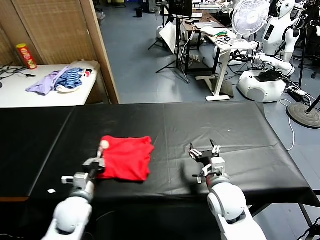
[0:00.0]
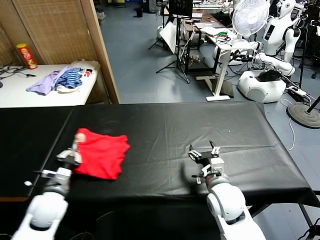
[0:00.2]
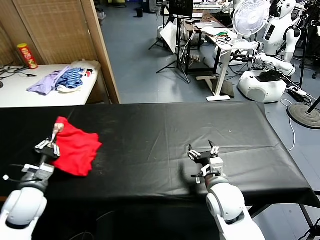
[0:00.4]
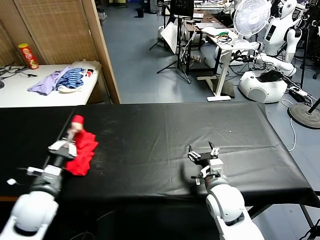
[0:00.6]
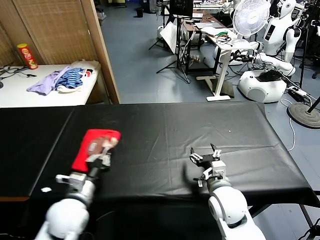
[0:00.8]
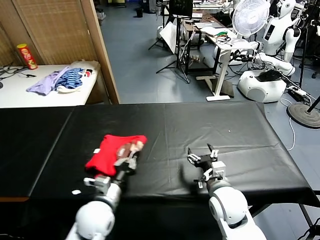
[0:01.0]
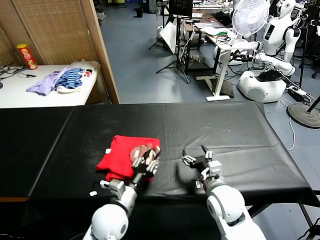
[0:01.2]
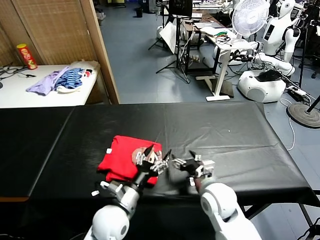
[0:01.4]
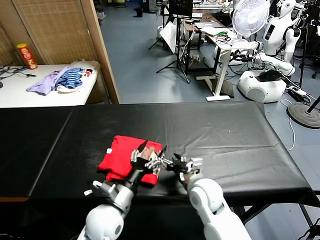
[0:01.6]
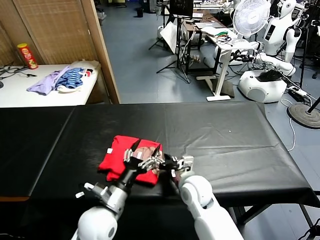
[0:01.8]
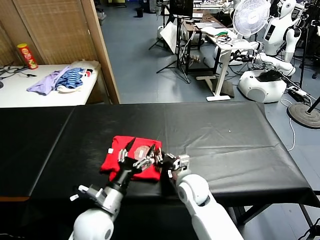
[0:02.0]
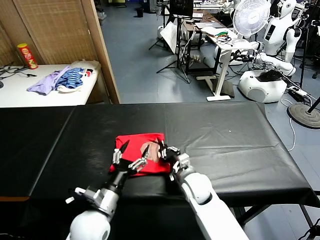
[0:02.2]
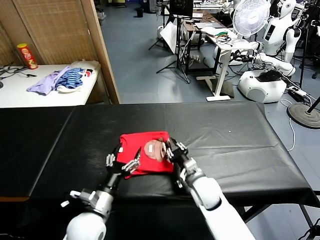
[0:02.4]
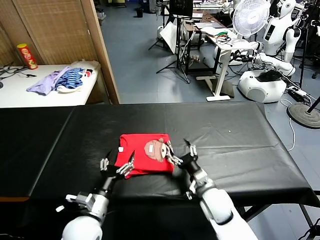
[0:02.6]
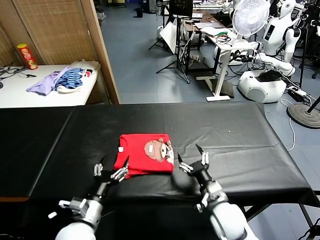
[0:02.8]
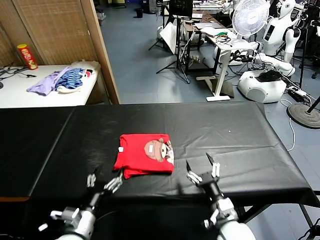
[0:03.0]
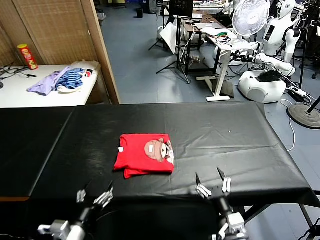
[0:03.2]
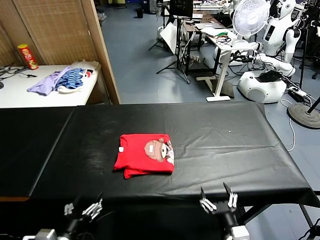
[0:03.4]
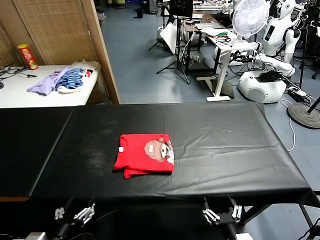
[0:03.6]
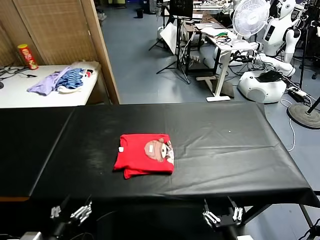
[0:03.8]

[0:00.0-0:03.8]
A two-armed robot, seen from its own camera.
Task of the whole recording: fold and organize the clothes.
Step, 0:01.4 to 0:02.4: Drag the clothes to the center of the table.
0:00.0 to 0:01.2: The left gripper heads to the right, covering about 10 cm.
0:01.2 to 0:02.6: The right gripper heads downward, covering about 5 cm, travels to the left and back again, approximately 10 cm each way, and closes, then opens again. The left gripper moves to the left, some 5 cm, and opens.
0:02.6 to 0:03.8: The right gripper goes some 25 cm backward. The left gripper shifts approximately 15 cm backward, to the left and upward.

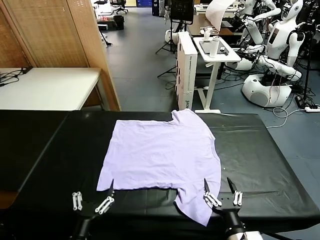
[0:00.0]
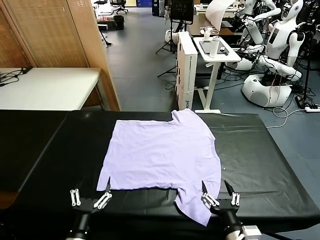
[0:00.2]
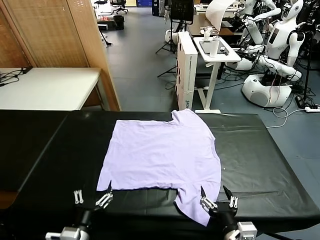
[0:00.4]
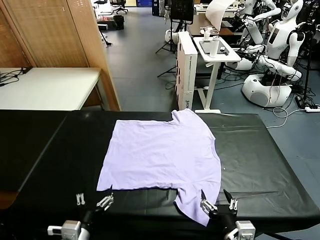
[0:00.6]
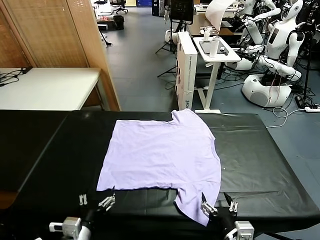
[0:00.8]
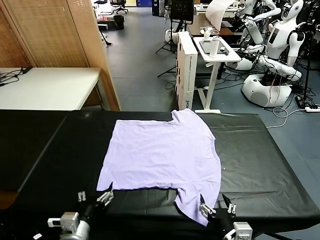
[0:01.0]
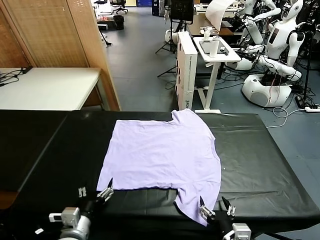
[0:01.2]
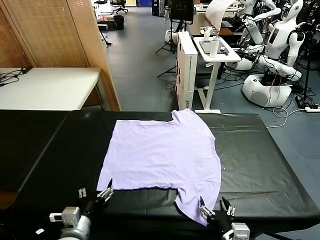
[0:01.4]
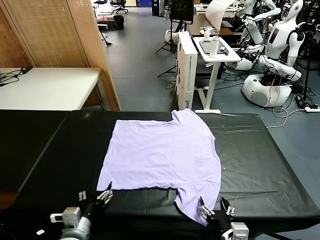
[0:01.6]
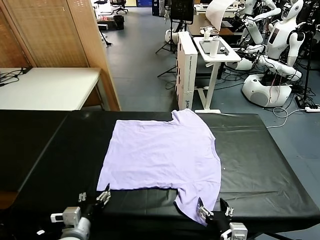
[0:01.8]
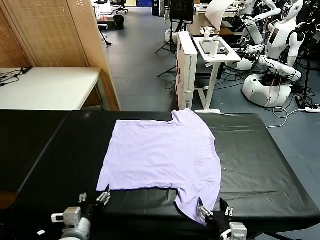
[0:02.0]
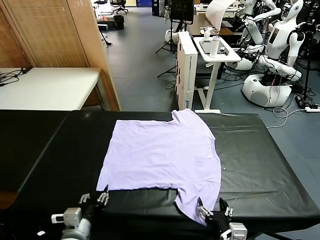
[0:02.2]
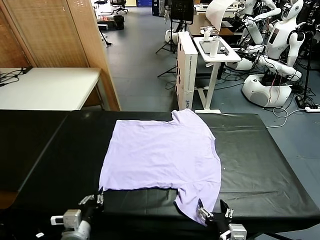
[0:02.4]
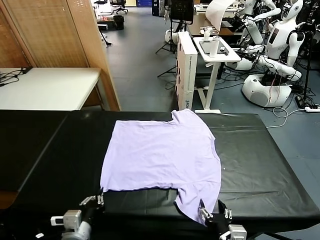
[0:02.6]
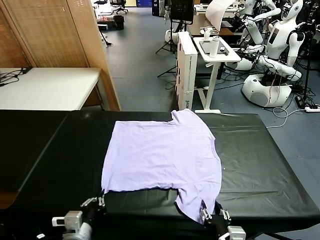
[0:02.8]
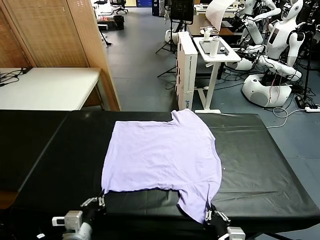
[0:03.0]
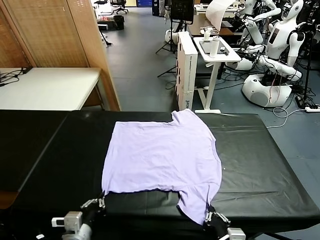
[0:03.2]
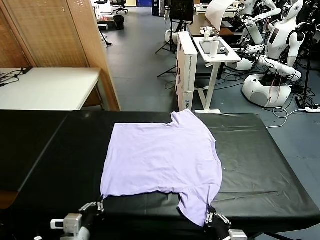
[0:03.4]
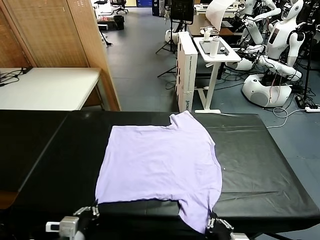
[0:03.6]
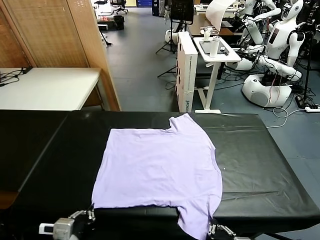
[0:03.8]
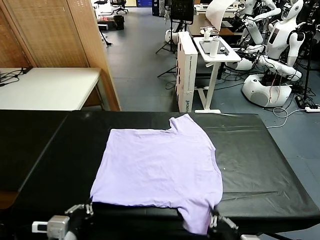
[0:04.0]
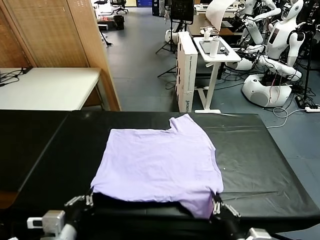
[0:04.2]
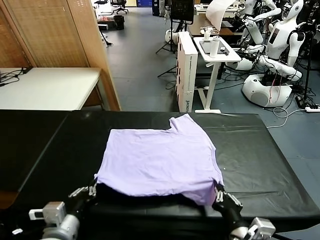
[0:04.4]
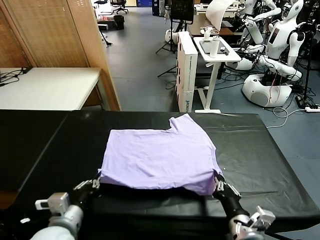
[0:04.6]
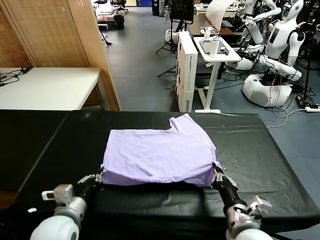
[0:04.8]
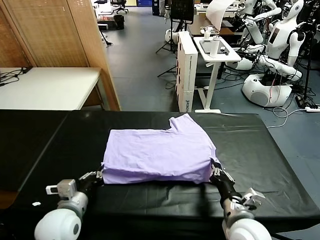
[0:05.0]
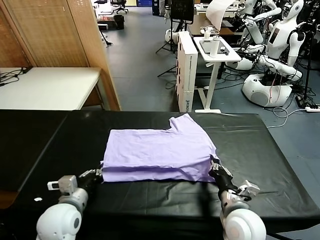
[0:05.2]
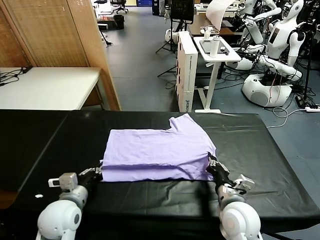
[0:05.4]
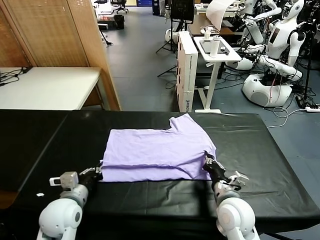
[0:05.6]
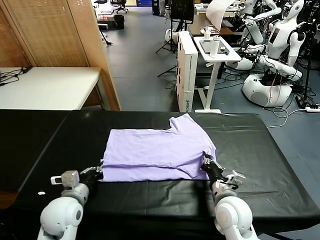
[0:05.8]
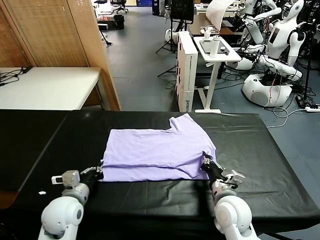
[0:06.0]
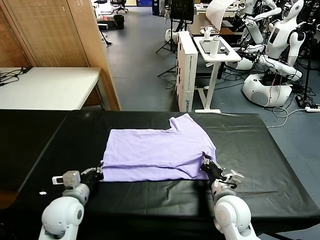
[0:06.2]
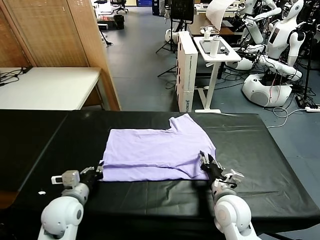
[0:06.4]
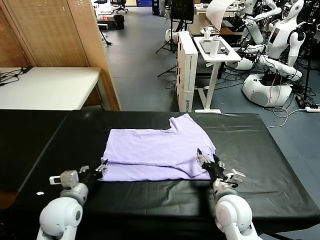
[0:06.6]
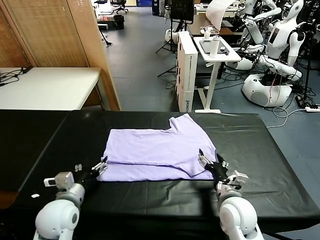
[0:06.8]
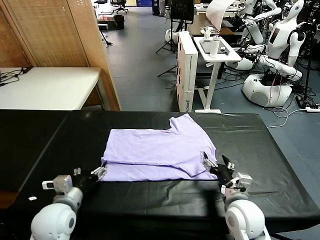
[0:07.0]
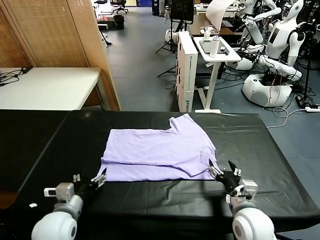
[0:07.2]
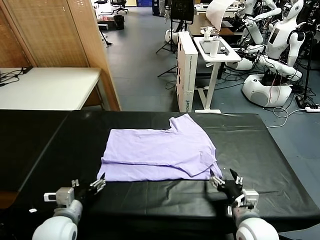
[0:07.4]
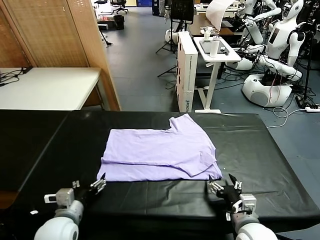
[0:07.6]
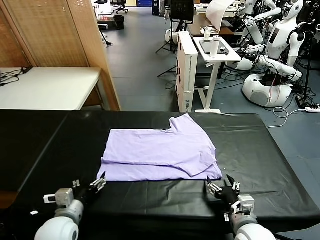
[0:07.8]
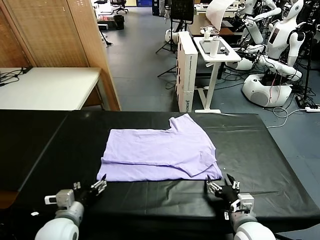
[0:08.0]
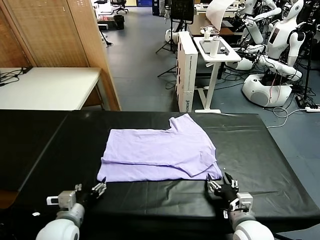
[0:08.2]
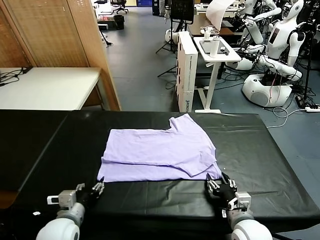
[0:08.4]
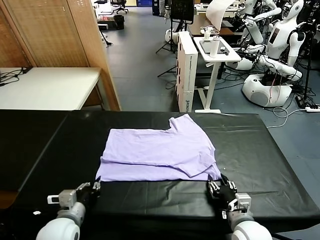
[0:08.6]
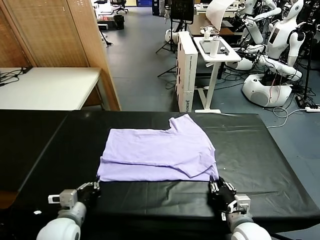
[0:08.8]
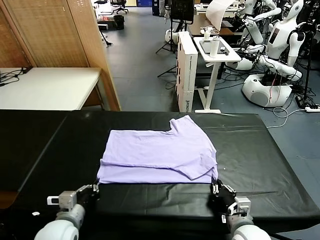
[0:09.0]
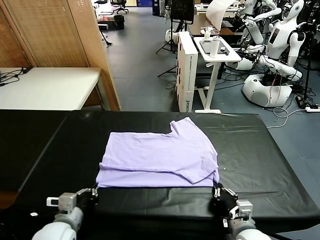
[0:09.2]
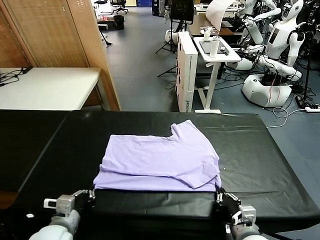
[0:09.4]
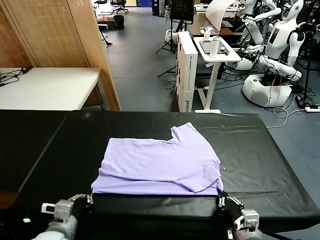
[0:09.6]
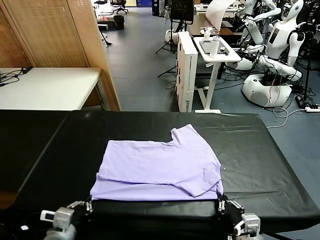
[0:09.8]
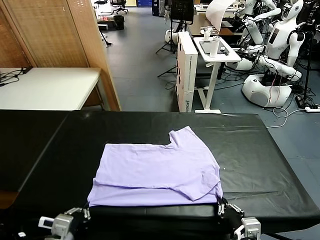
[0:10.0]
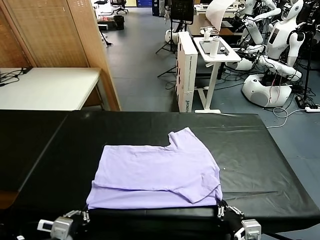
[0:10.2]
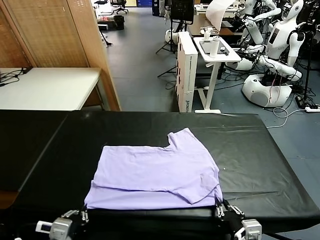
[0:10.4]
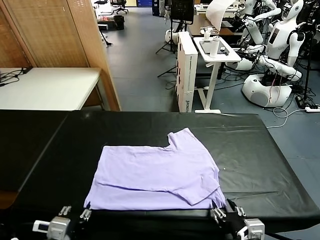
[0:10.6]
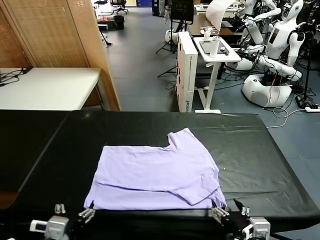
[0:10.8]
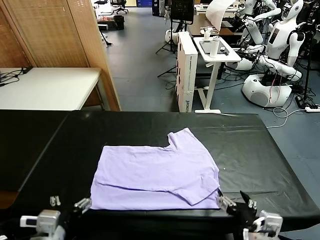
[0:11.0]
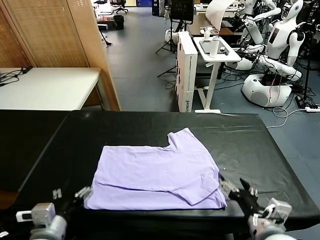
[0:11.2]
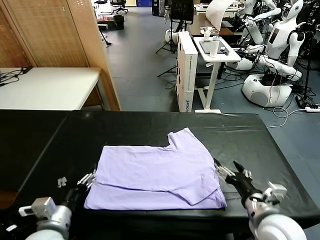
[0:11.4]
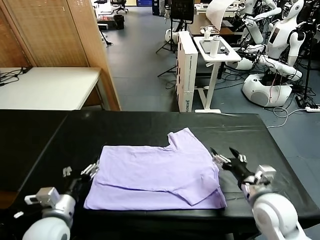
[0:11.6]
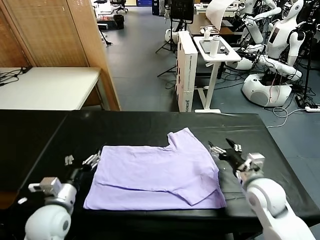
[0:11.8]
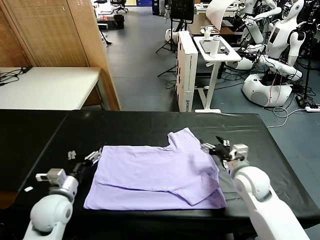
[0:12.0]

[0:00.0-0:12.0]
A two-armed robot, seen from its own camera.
Task of the whole recording: fold and organize the clothes.
Step, 0:00.0 to 0:03.8: use both grippers simultaneously to clamp the lower edge of the clothing fabric.
Step, 0:04.0 to 0:06.8: use both grippers to drag the lower edge of the fabric forward and fold it over the upper edge.
Step, 0:07.0 to 0:10.8: Drag the clothes downward with both gripper.
0:01.6 to 0:03.0: The left gripper closes up, while the right gripper closes up.
0:03.0 to 0:04.4: The right gripper travels forward by about 10 cm, while the left gripper shifts roughly 5 cm upward.
0:04.4 to 0:06.0: Both grippers travel together forward and downward, about 10 cm. The right gripper opens.
0:06.0 to 0:07.6: The right gripper shifts some 5 cm backward, and opens its fingers. The left gripper shifts by approximately 5 cm, and opens its fingers.
0:07.6 to 0:09.0: The left gripper closes up, while the right gripper closes up.
0:09.0 to 0:10.4: The right gripper heads upward, covering approximately 5 cm, and opens up; the left gripper shifts about 5 cm backward, and opens its fingers.
0:10.4 to 0:12.0: The left gripper goes approximately 15 cm forward, and opens; the right gripper shifts roughly 30 cm forward.

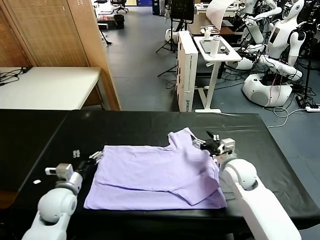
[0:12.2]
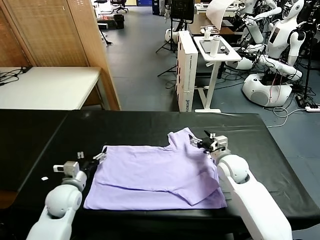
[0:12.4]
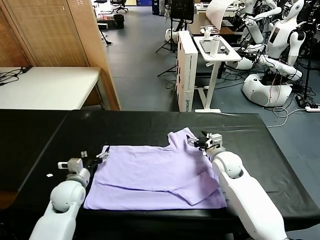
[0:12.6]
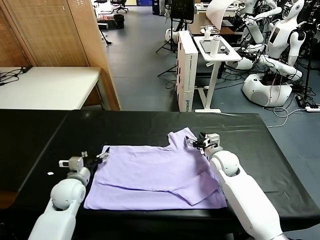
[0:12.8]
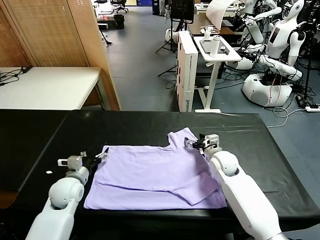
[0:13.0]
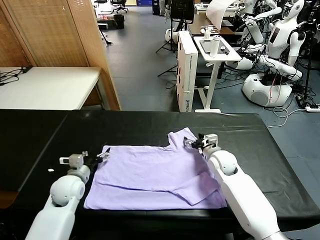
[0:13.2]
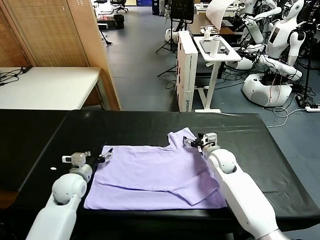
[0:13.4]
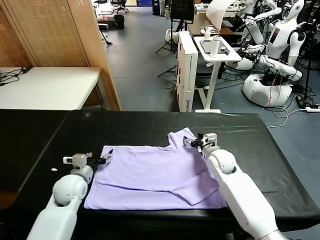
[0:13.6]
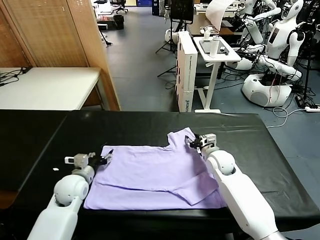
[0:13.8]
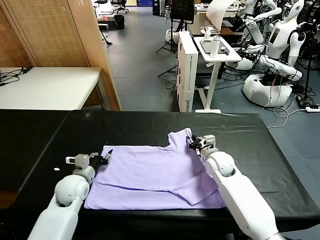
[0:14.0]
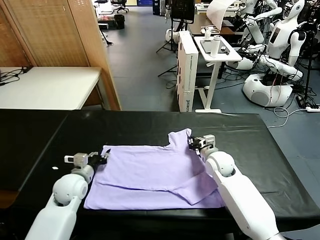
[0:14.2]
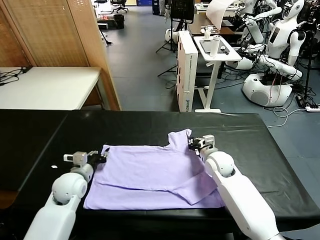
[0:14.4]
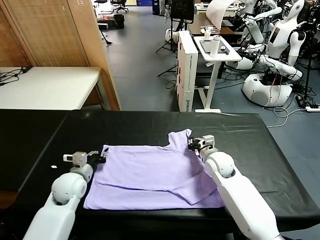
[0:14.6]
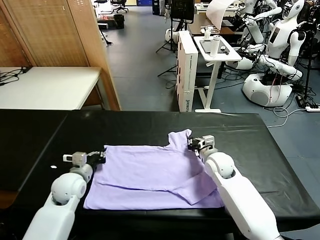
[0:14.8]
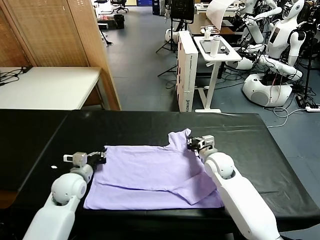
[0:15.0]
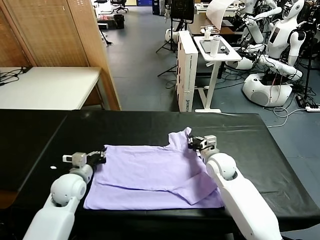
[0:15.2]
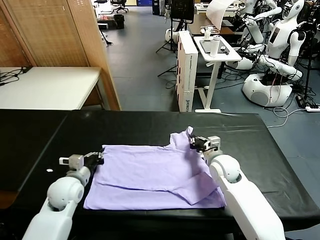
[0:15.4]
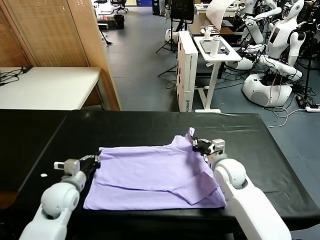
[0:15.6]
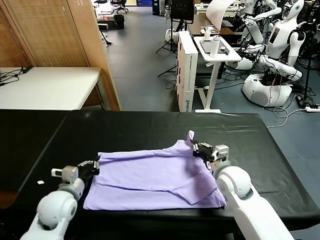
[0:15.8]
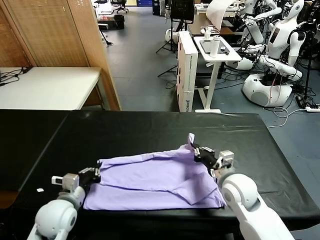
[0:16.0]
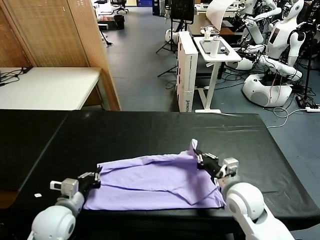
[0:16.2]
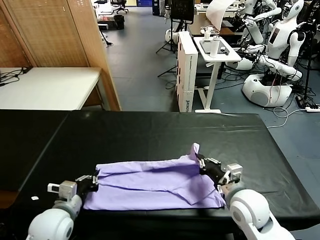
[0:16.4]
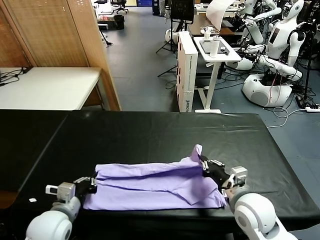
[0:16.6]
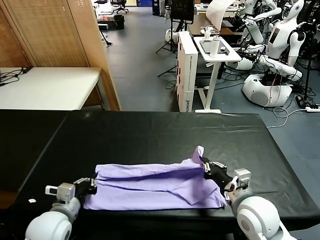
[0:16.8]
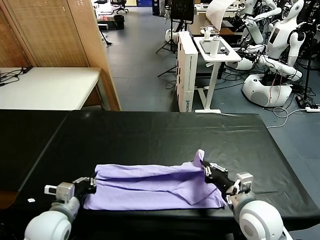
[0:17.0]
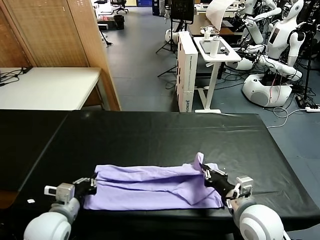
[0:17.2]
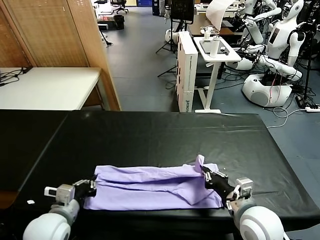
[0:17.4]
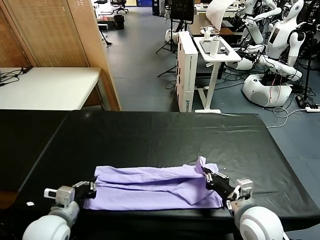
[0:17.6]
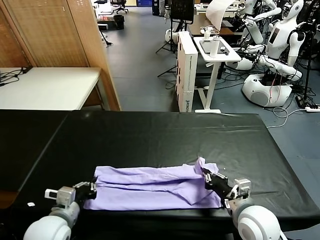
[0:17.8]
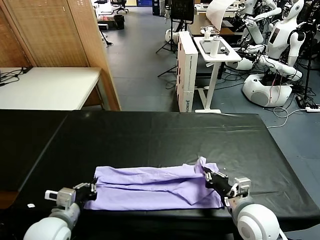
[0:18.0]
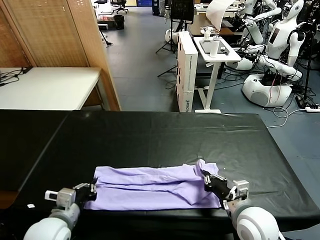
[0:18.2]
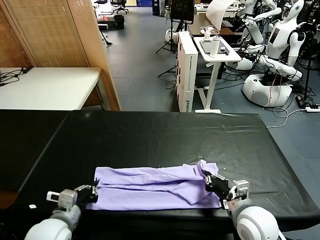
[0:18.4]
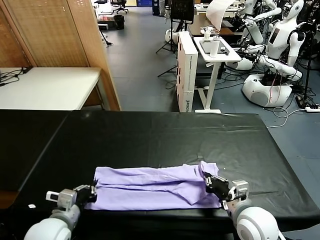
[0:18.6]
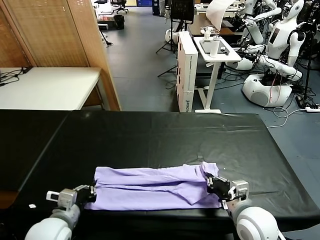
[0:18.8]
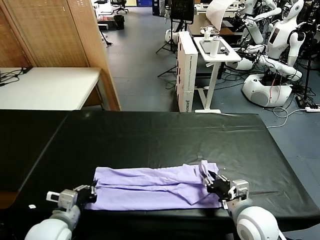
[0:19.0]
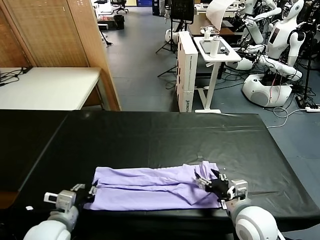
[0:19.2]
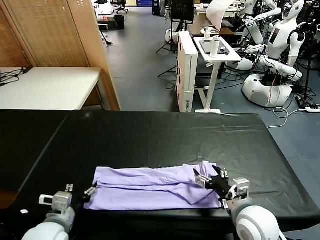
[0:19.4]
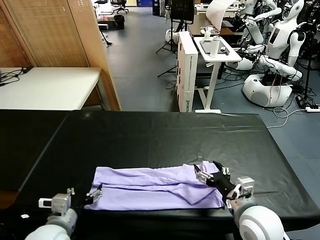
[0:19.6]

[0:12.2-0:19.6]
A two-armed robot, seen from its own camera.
Task of the whole recording: fold and organize the clothes.
Step, 0:12.2 to 0:15.0: use both grippers simultaneously to clamp the upper edge of the clothing fabric.
Step, 0:15.2 to 0:19.2: use both grippers to drag the upper edge of the fabric backward and fold it over the lower edge.
0:12.2 to 0:13.6: The right gripper closes its fingers.
0:13.6 to 0:15.2: The left gripper closes up. The right gripper is displaced backward by about 5 cm, and closes up.
0:15.2 to 0:16.6: Both grippers move backward, roughly 15 cm.
0:16.6 to 0:18.2: There are only small adjustments of the grippers.
0:18.2 to 0:19.6: The right gripper goes about 5 cm upward, and opens. The left gripper opens.
